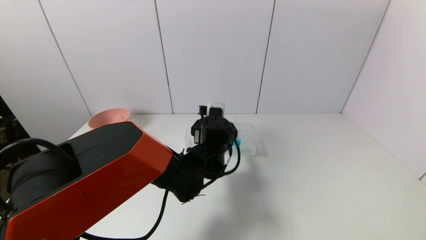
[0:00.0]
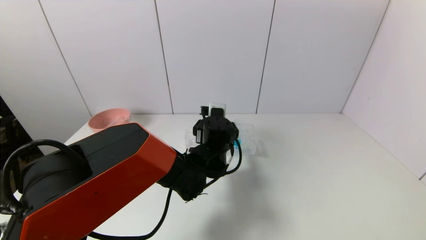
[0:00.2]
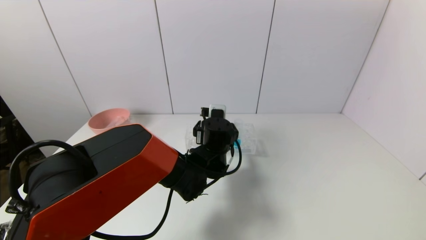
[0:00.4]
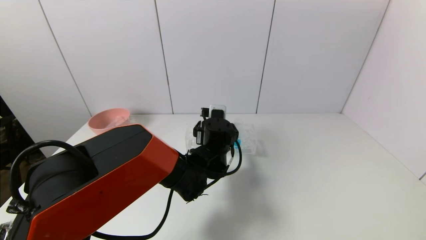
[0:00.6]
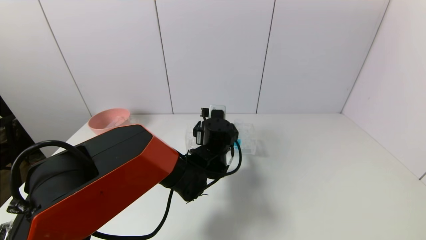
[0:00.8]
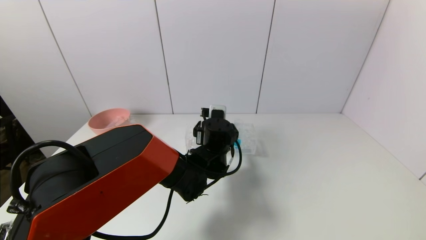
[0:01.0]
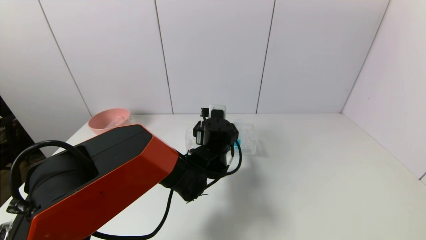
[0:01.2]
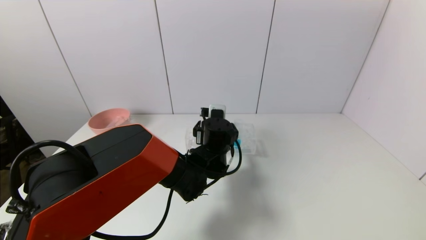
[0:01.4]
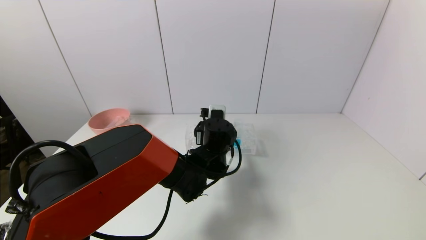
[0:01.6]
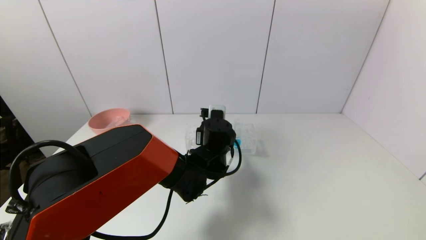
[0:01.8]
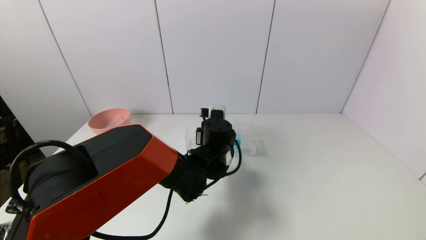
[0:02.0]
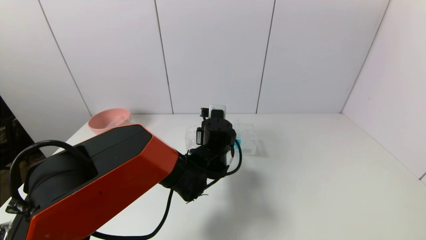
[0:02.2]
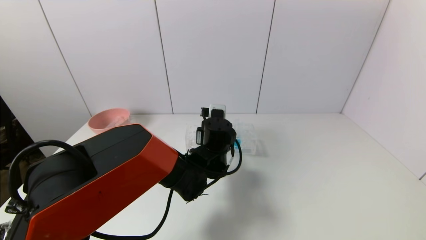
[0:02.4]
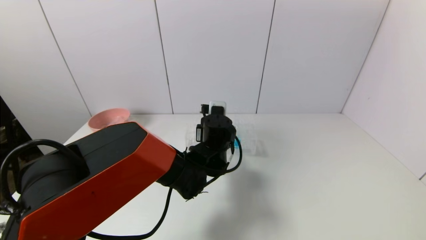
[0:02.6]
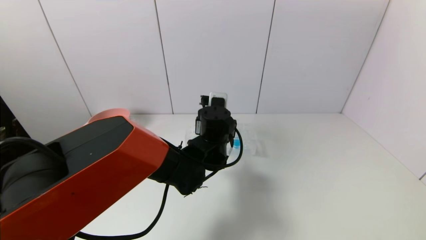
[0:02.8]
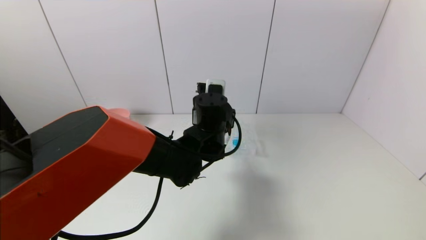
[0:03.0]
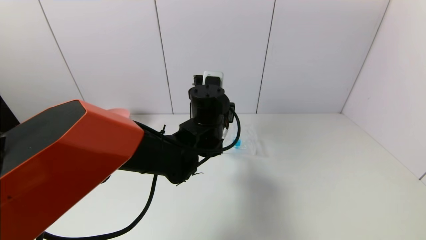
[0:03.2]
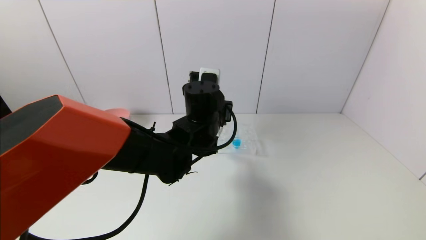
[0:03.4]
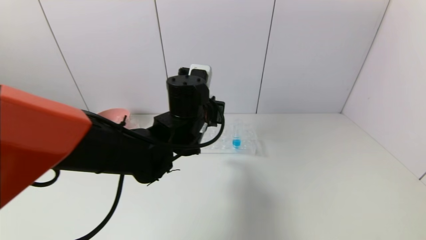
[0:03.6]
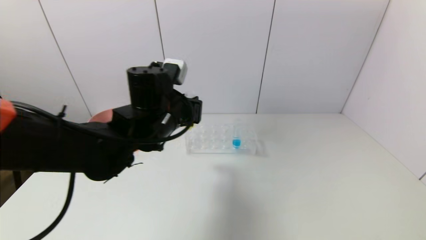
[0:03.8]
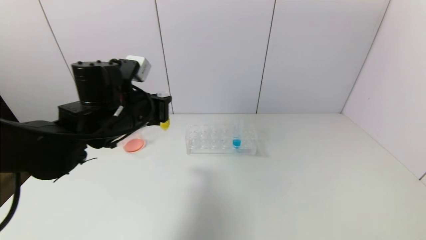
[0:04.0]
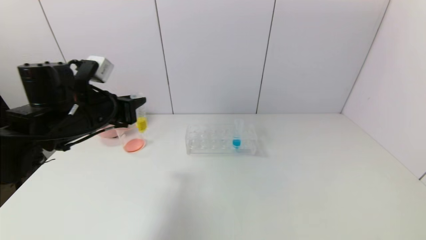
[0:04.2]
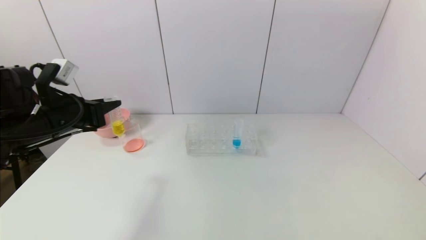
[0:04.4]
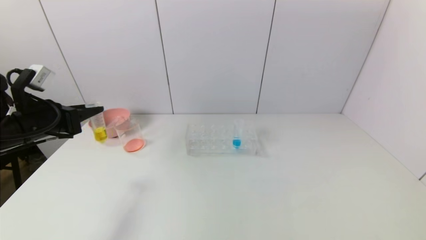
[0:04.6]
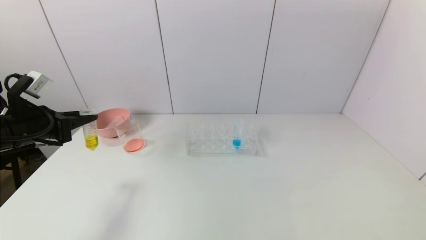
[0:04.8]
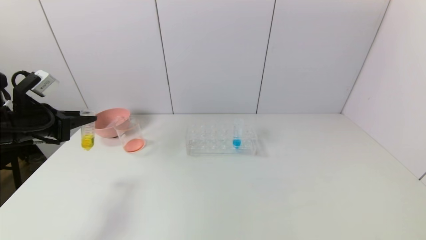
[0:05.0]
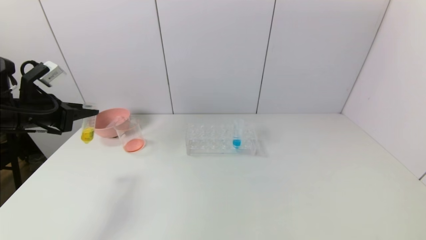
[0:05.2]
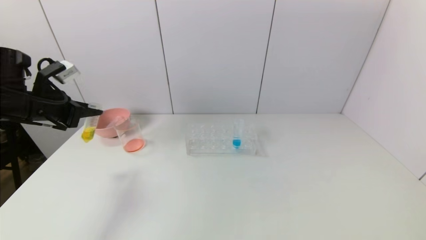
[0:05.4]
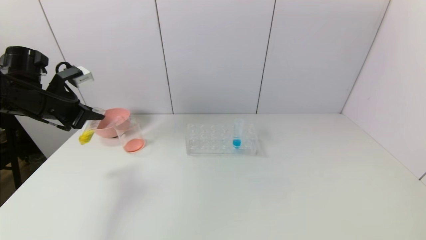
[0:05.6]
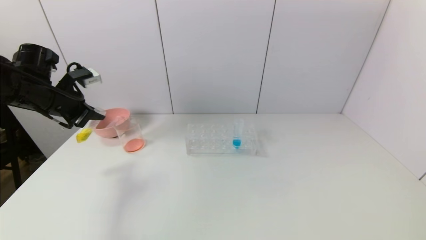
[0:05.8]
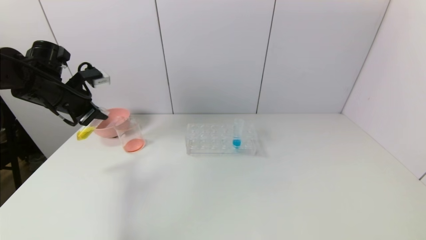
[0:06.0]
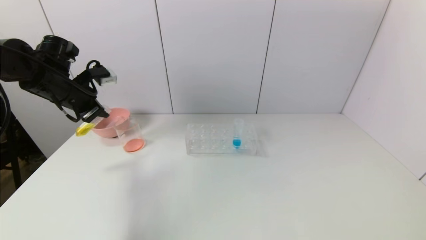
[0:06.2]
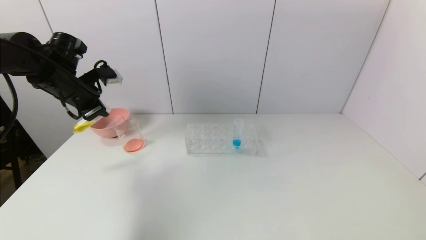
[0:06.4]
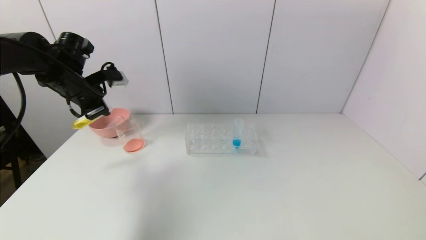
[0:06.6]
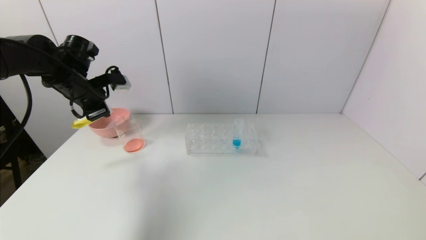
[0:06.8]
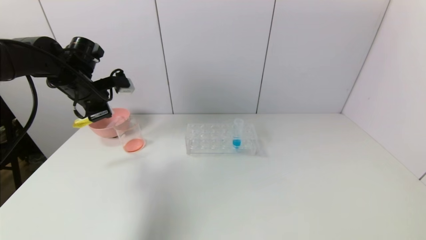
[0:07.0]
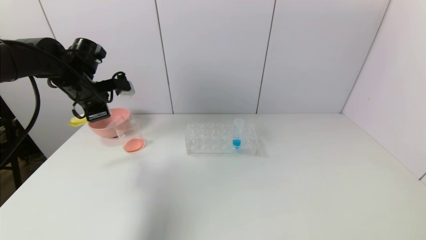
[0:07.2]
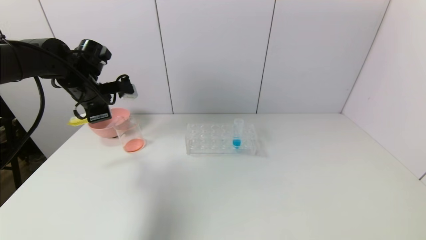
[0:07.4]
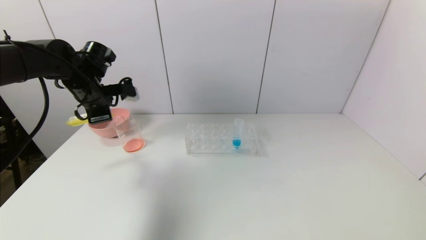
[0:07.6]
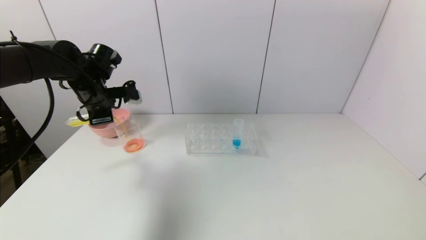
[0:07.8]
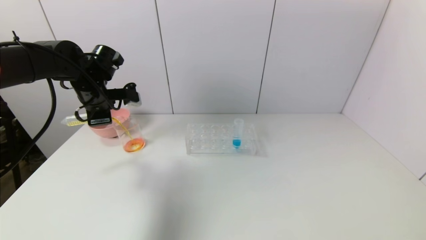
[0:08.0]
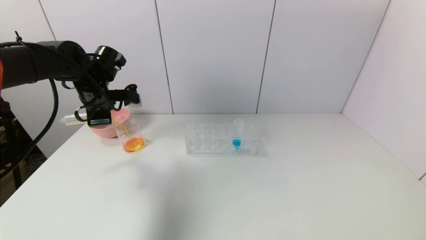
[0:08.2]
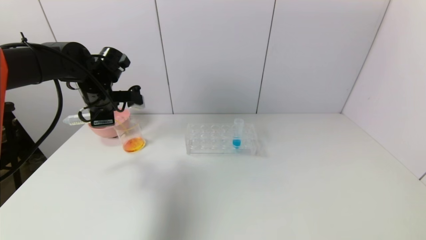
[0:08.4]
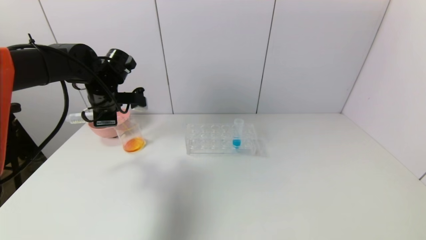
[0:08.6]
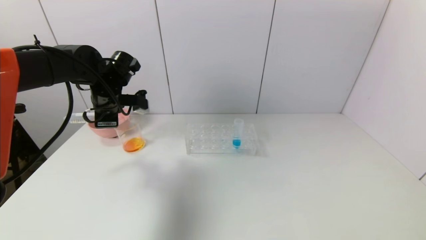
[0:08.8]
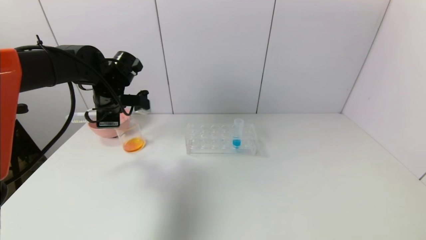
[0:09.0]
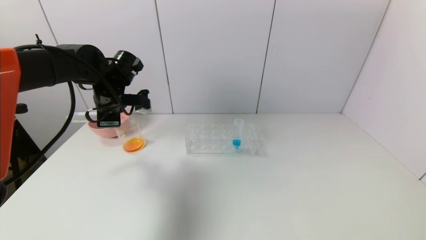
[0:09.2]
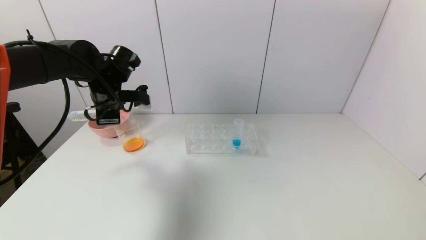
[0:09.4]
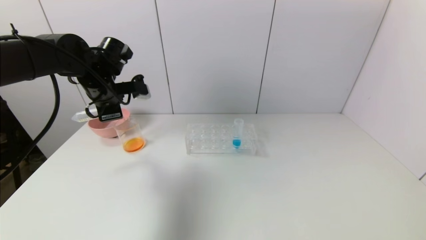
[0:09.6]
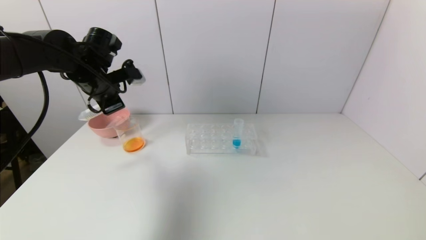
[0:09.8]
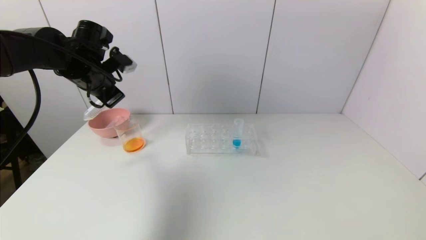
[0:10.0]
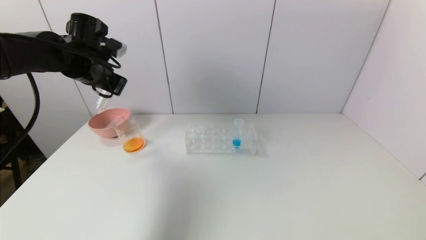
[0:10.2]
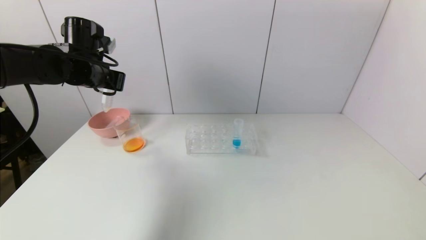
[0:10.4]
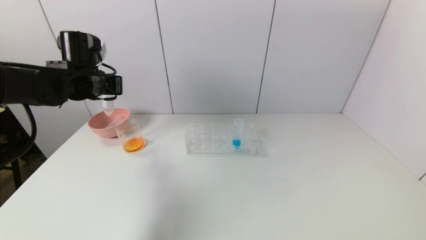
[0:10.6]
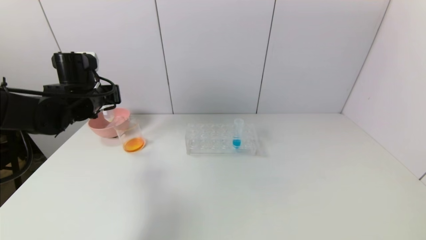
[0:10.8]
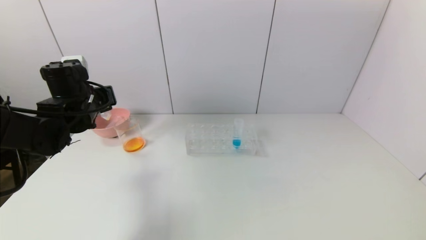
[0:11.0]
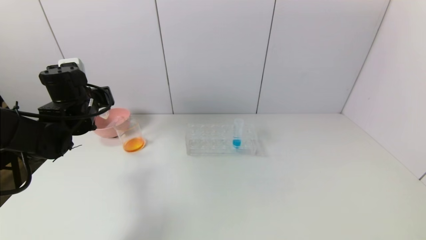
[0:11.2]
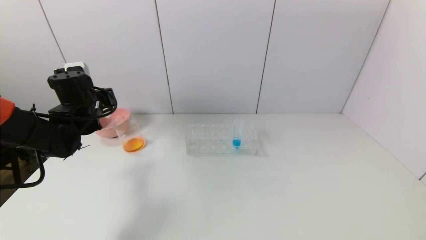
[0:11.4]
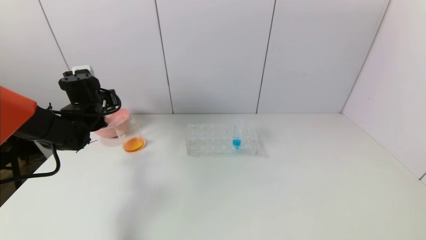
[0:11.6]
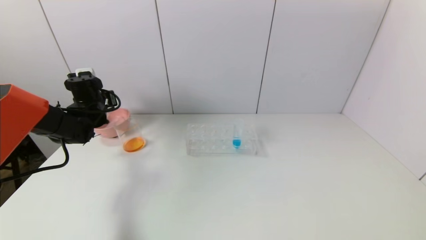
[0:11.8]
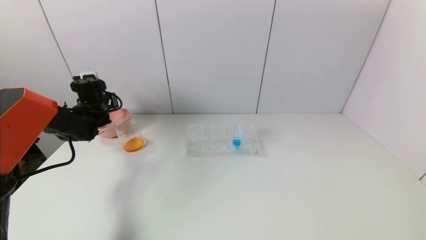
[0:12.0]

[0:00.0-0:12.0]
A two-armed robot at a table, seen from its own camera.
Task of the whole recording: pick up the test tube with yellow pigment and the test tube with red pigment by grippers and pour them into the beaker.
Step, 0:00.0 to 0:02.2: Grasp the yellow reagent with the left gripper.
Step, 0:02.4 to 0:09.0: Pour the yellow reagent into the graduated cylinder with the left gripper.
0:00.0 to 0:01.6: The two grippers keep their place.
0:01.6 to 0:03.0: The left gripper travels upward by roughly 5 cm, and closes.
0:03.0 to 0:04.4: The left gripper moves to the left, about 30 cm.
0:04.4 to 0:06.0: The left gripper goes some 10 cm forward.
0:06.0 to 0:07.6: The left gripper moves to the right, some 5 cm.
0:07.6 to 0:09.0: The grippers stay close to where they were, moving slightly.
0:09.0 to 0:10.4: The left gripper shifts by some 5 cm.
0:10.4 to 0:12.0: The left gripper goes approximately 15 cm downward, forward and to the left.

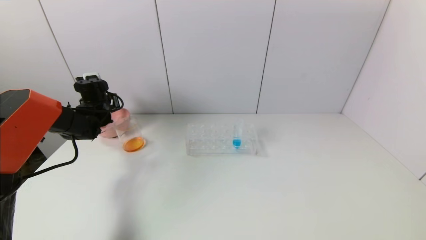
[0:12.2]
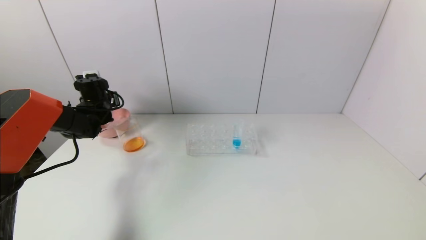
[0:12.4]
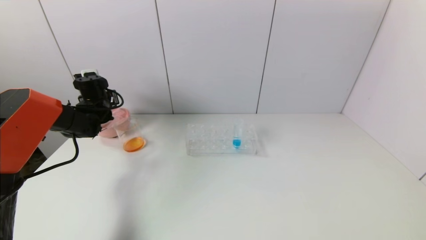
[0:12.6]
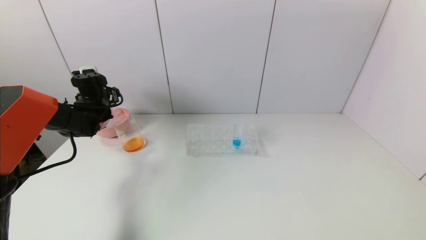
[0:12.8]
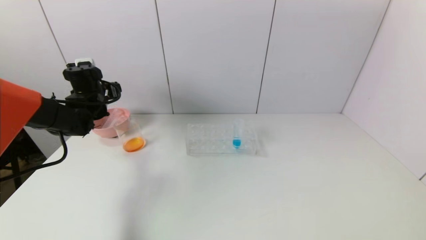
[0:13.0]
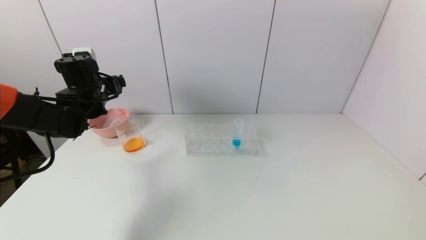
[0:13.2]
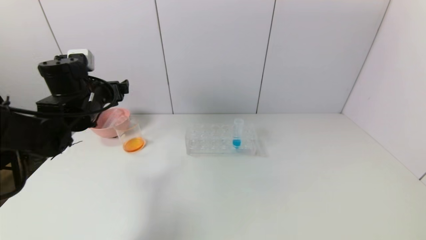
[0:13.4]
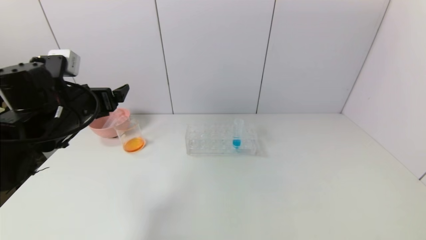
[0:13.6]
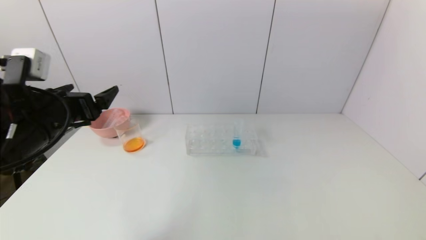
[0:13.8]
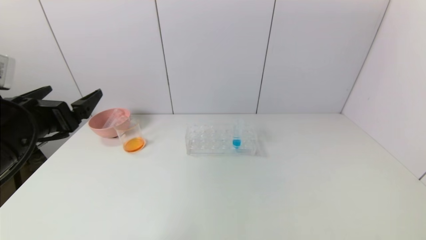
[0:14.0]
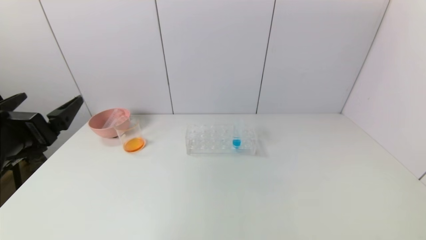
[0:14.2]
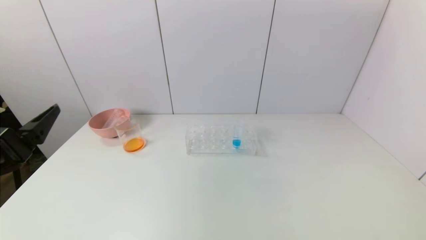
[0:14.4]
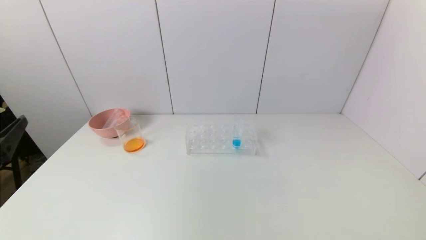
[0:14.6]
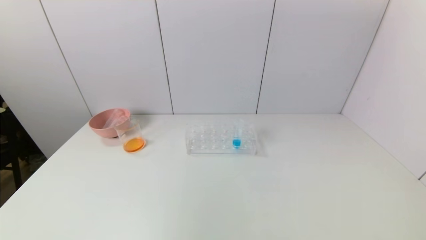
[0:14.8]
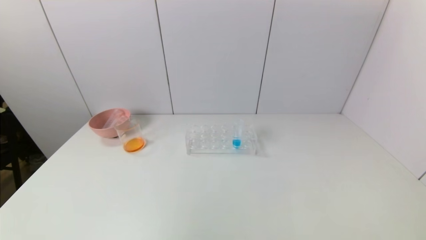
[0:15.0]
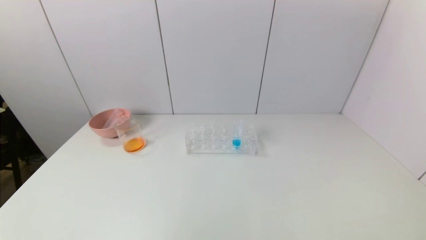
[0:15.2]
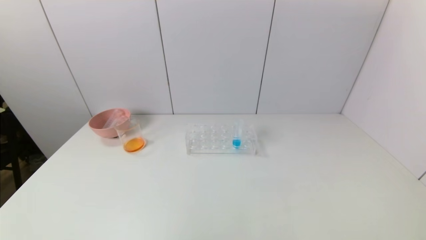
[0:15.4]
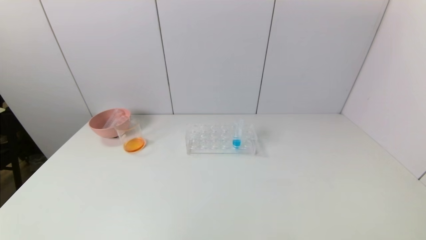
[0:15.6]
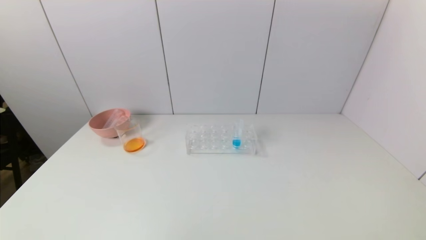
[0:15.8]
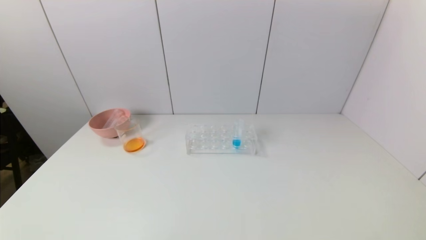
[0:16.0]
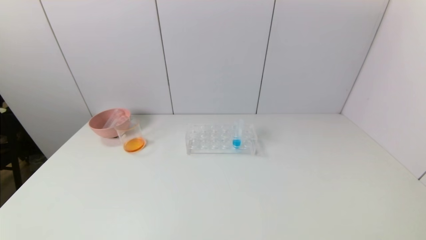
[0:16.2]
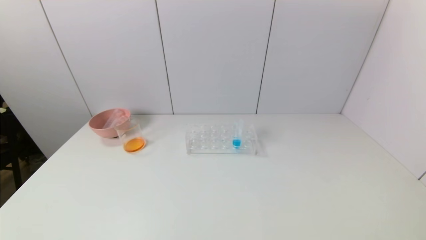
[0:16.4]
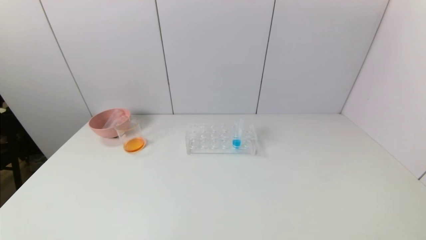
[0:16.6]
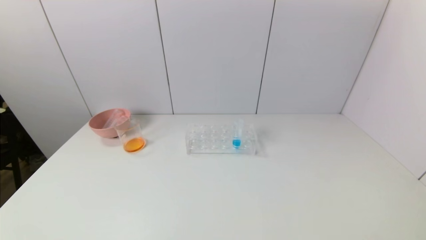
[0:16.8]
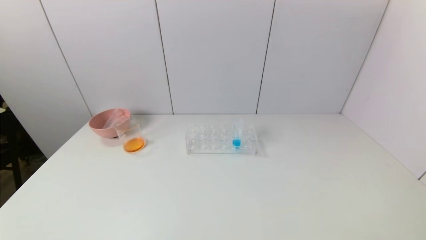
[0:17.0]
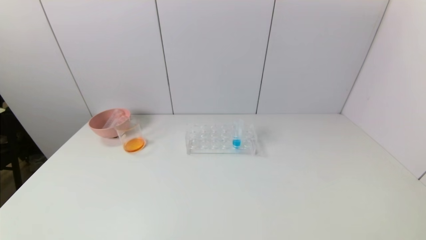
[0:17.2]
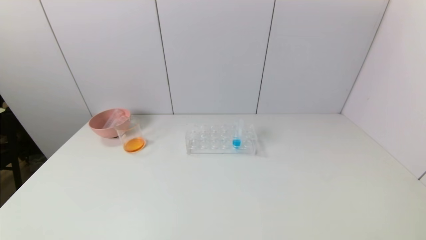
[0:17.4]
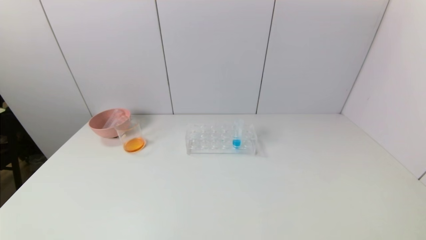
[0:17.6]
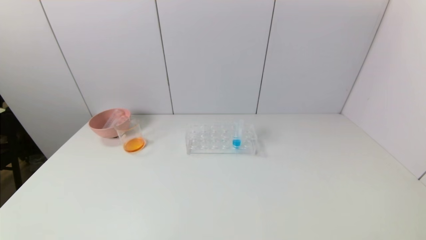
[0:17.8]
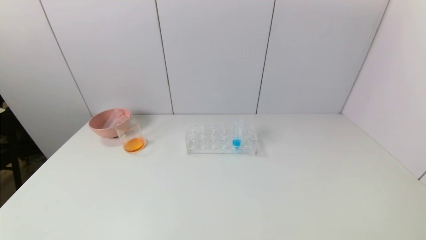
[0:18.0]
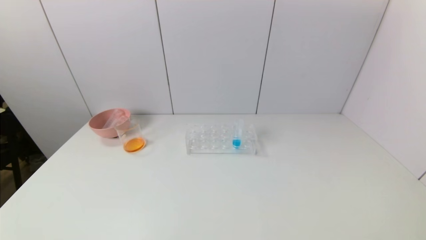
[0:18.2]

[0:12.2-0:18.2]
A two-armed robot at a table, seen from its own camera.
Task of the whole recording: pick up the test tube with yellow pigment and the test tube with red pigment by grippers and pour them into the beaker.
0:12.2 to 0:13.8: The left gripper heads backward, covering approximately 25 cm, and opens.
0:13.8 to 0:15.2: The left gripper moves backward, roughly 25 cm.
0:16.6 to 0:18.2: Both grippers stay about where they are.
